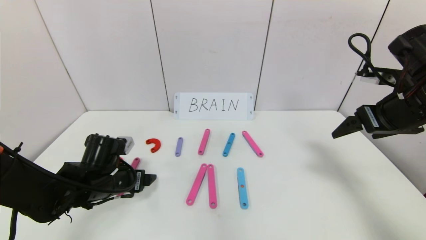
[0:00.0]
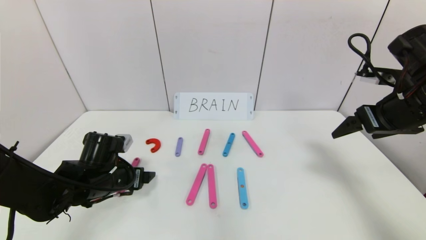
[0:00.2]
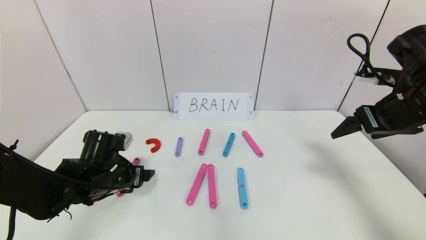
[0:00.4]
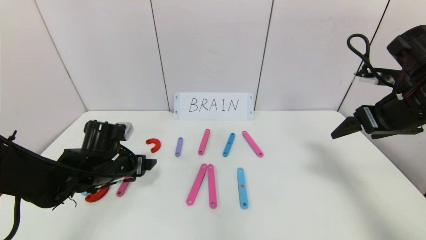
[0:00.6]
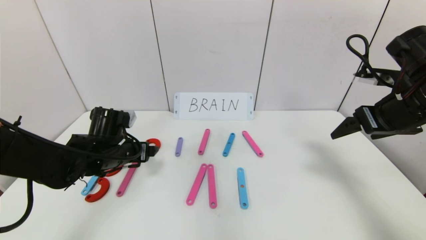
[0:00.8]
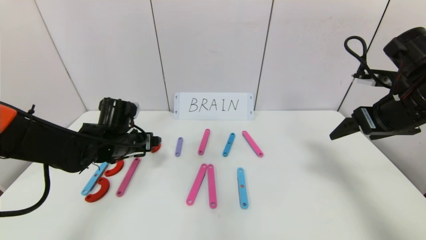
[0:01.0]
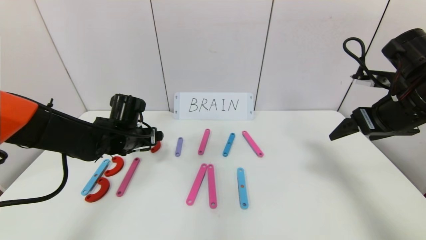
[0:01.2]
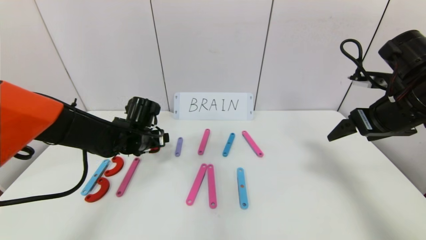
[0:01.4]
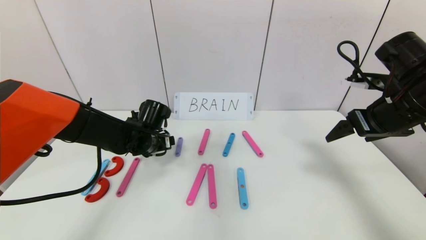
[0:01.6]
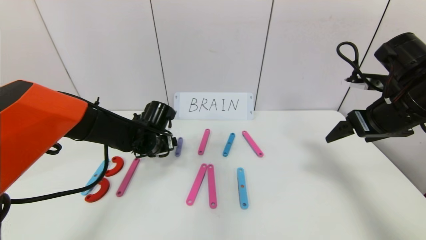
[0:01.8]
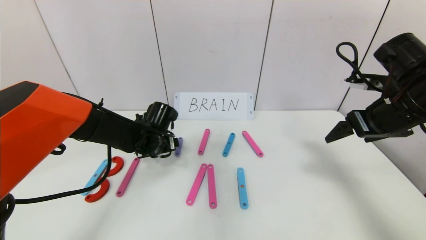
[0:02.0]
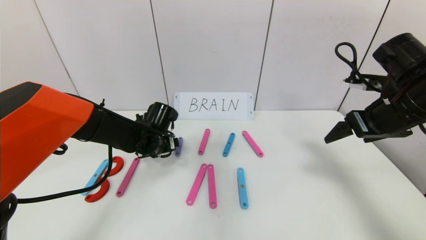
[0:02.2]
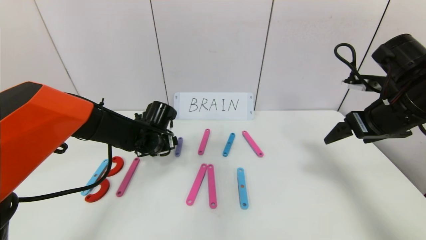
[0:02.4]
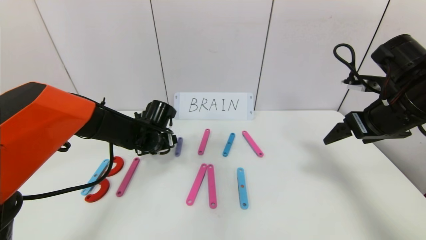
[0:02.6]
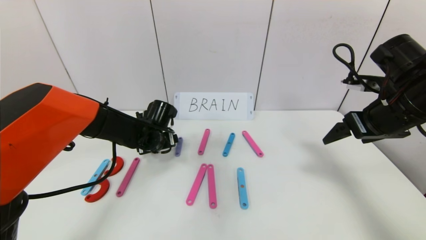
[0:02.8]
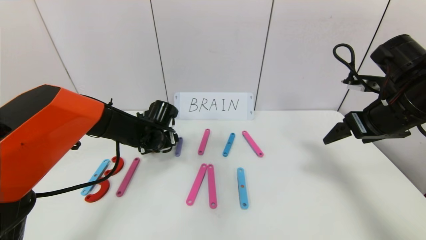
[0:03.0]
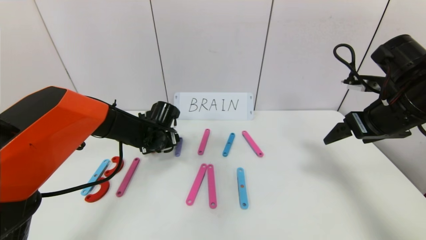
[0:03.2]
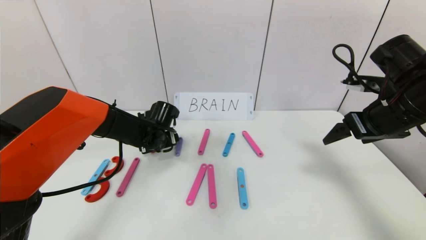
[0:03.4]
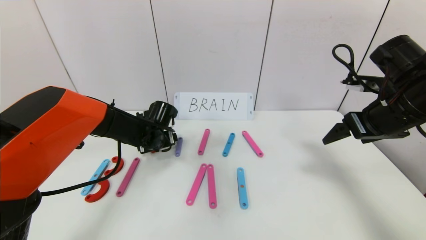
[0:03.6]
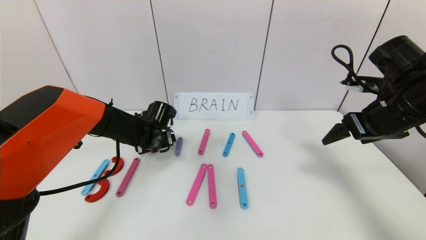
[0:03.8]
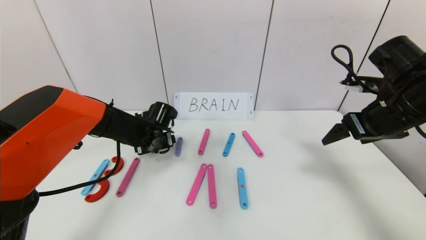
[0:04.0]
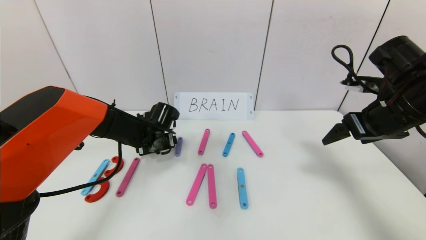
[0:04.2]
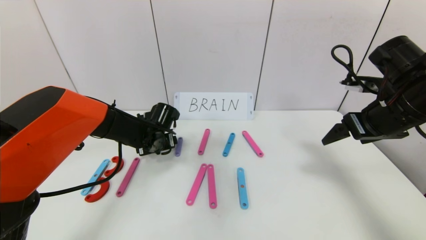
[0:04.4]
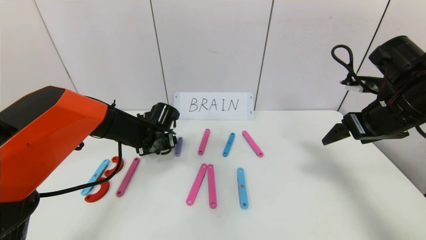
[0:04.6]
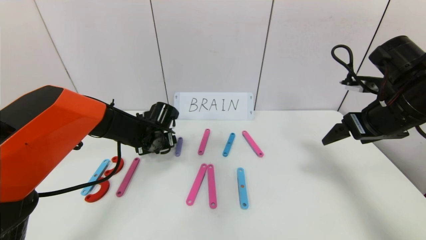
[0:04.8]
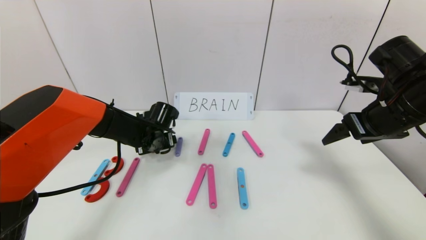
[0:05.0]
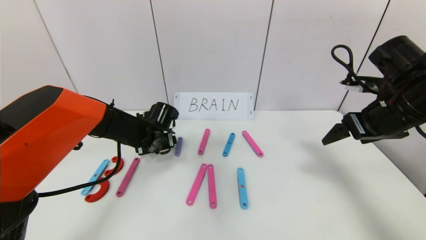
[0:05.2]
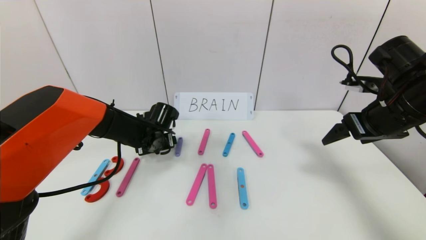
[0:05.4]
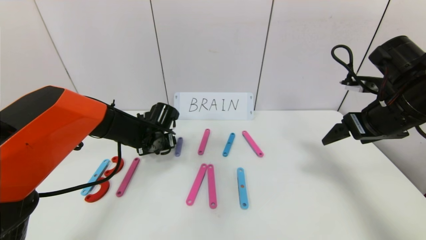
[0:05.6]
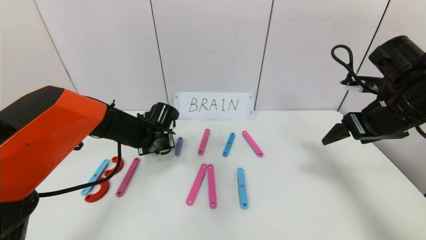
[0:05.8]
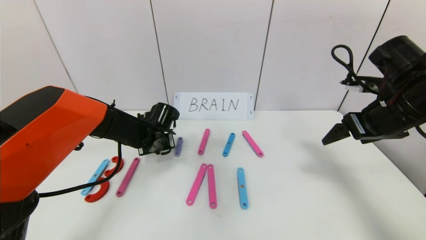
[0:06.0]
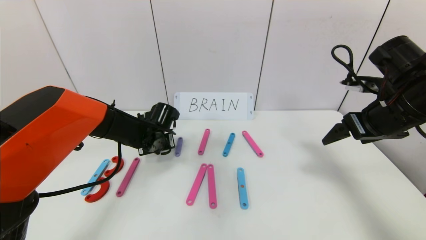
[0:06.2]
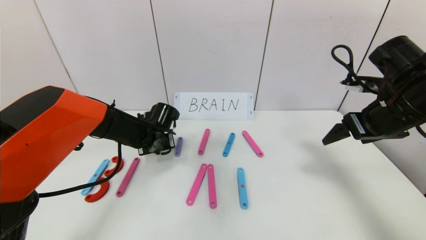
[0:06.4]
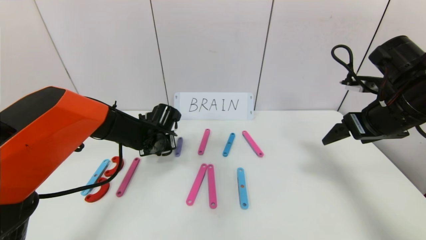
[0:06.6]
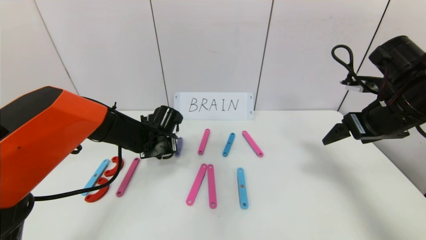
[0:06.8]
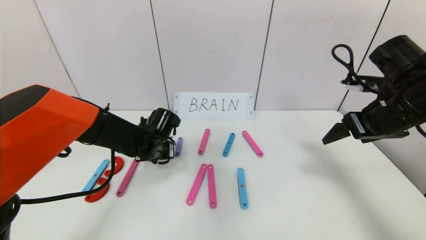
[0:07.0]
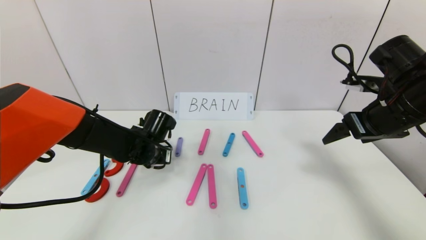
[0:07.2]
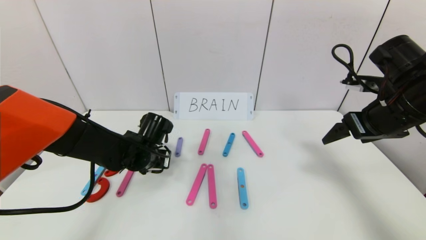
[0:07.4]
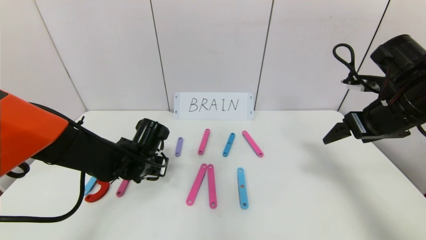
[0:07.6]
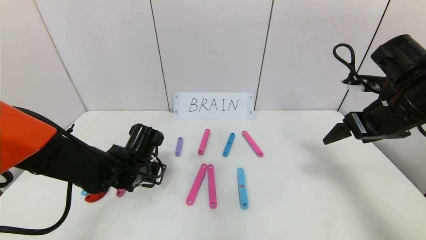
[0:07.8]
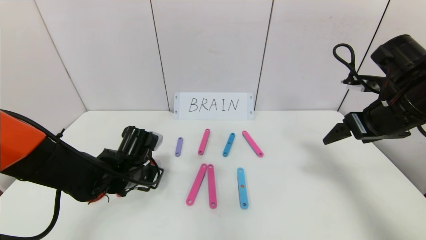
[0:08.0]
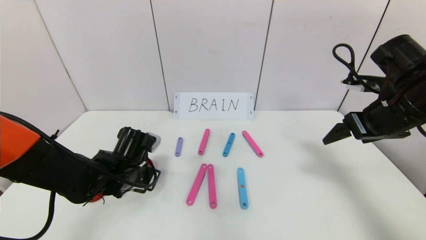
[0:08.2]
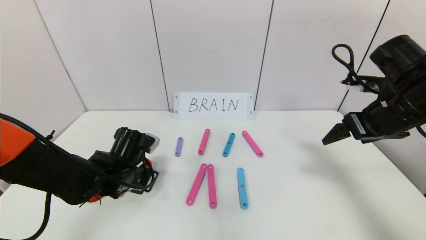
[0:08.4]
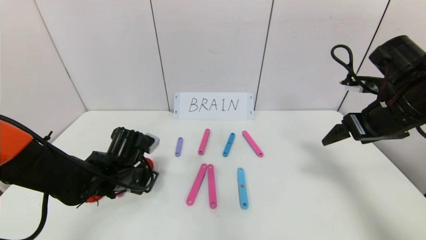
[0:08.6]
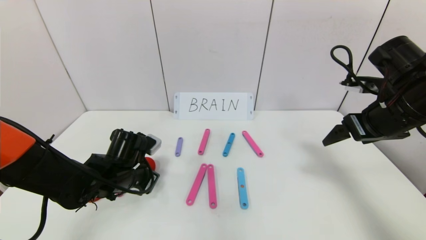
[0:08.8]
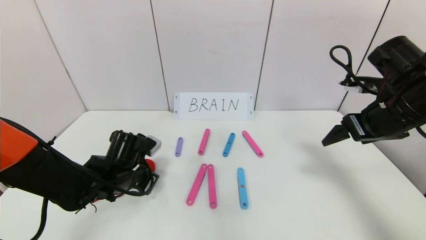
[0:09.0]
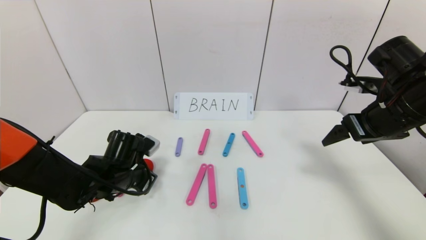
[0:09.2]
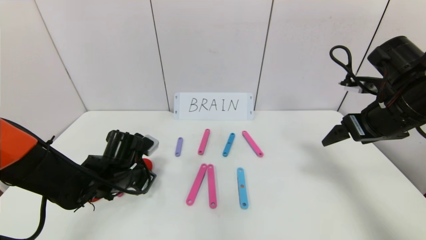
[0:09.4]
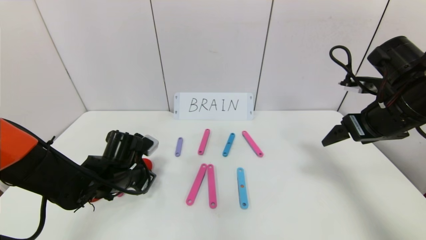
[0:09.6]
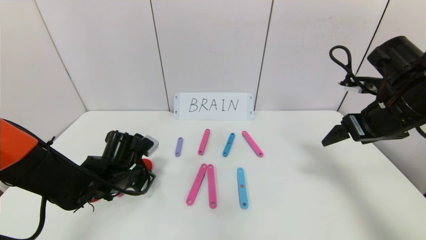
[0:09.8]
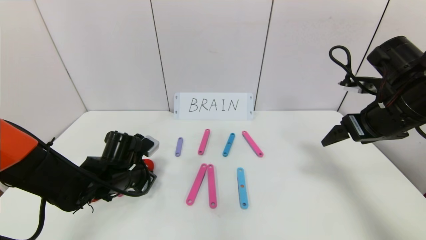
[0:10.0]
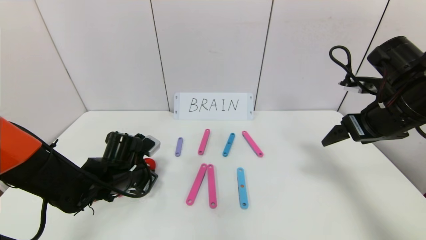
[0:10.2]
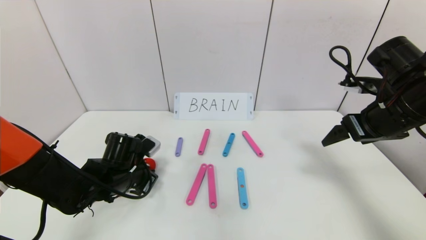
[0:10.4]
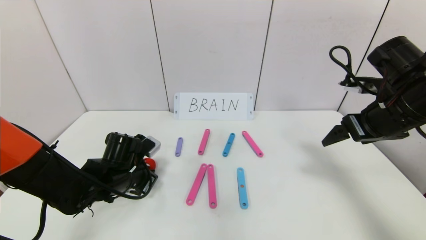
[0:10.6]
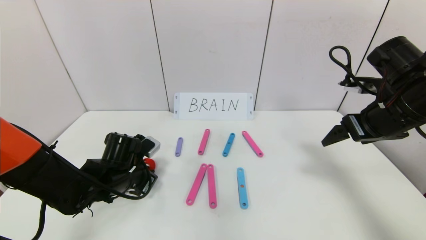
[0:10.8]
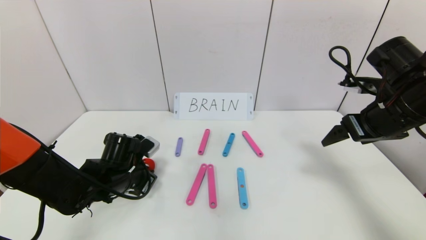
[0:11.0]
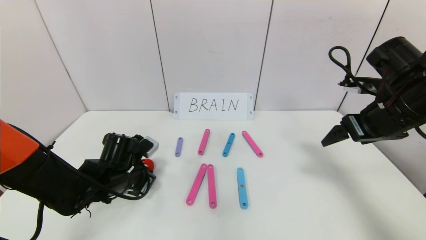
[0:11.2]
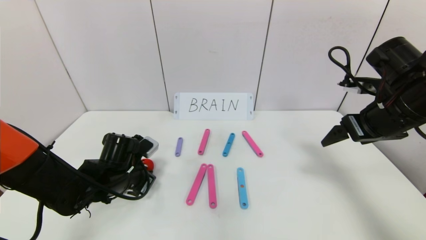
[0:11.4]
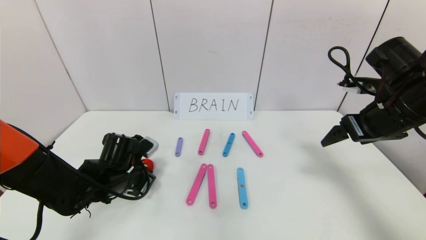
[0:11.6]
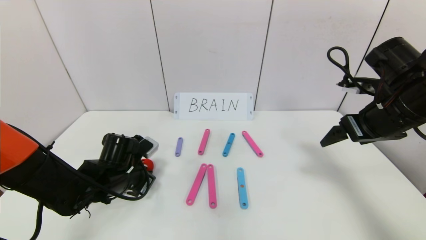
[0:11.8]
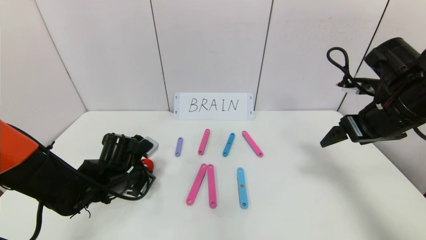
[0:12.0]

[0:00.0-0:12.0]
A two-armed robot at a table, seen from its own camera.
Task of the whole recording: rearrange the word baai as brain.
0:00.0 to 0:01.6: The left gripper goes approximately 10 cm forward and to the right.
0:01.6 to 0:03.0: The grippers make only small movements.
0:03.0 to 0:04.4: Both grippers stay put.
0:06.0 to 0:07.6: The left gripper travels backward by about 10 cm.
0:09.0 to 0:10.4: The two grippers keep their place.
0:10.4 to 0:12.0: Neither gripper changes place.

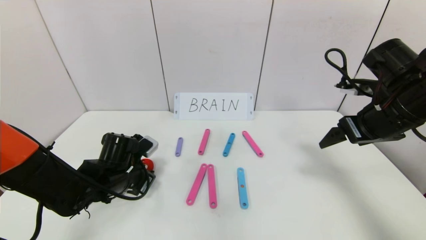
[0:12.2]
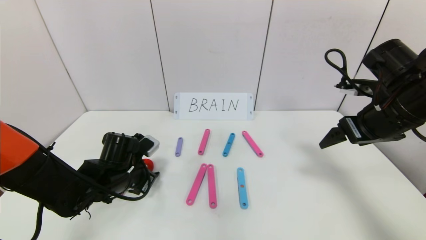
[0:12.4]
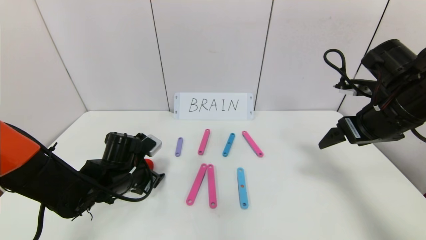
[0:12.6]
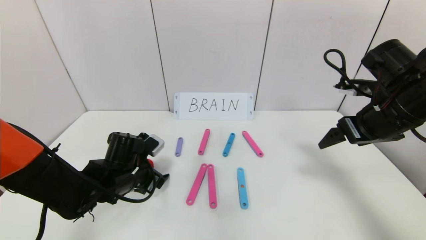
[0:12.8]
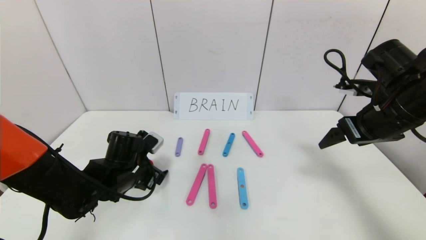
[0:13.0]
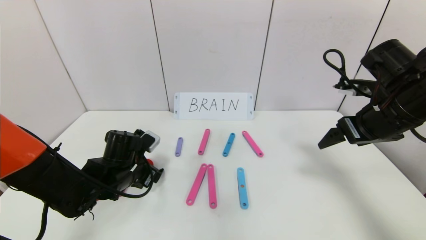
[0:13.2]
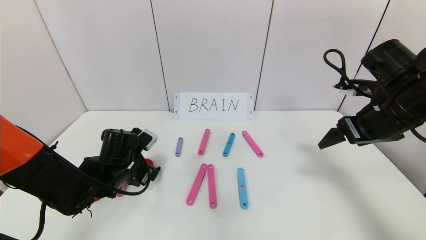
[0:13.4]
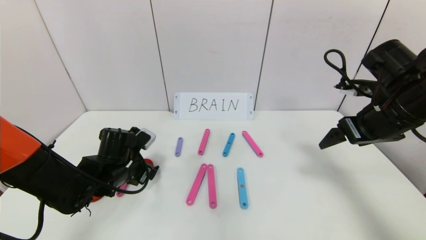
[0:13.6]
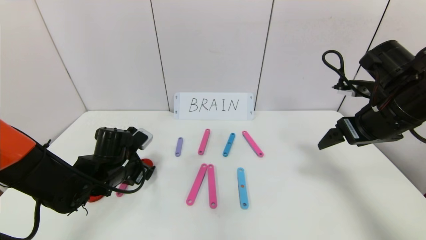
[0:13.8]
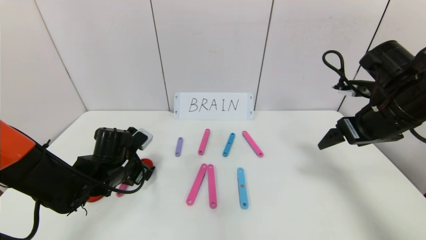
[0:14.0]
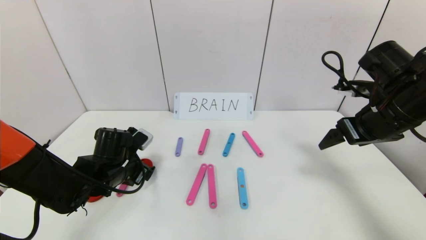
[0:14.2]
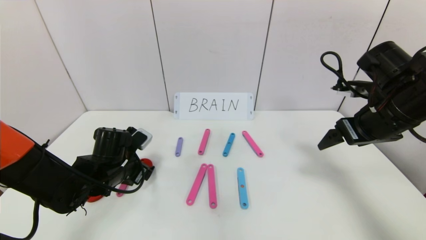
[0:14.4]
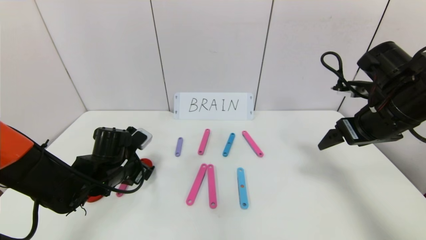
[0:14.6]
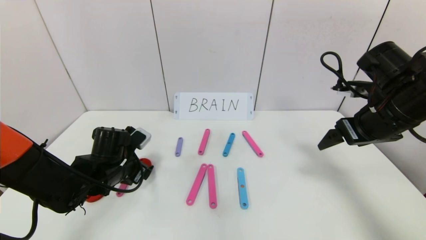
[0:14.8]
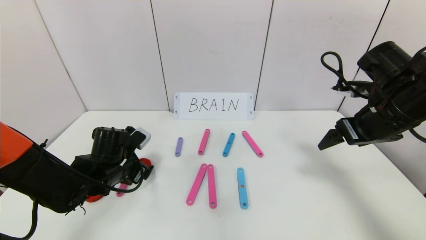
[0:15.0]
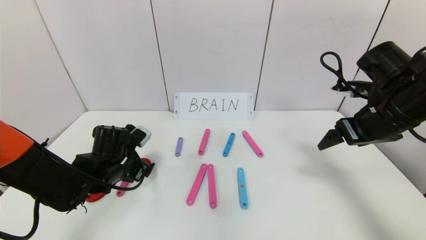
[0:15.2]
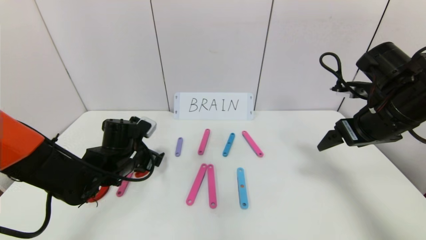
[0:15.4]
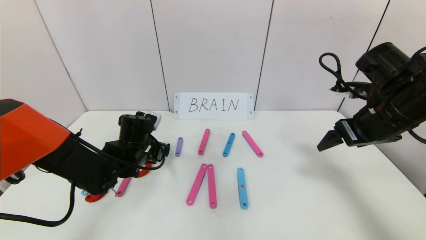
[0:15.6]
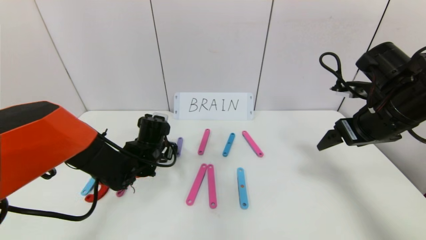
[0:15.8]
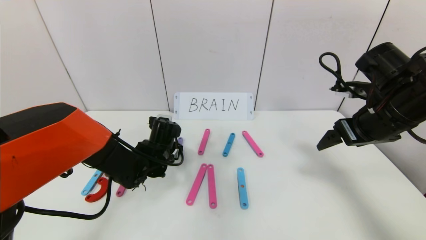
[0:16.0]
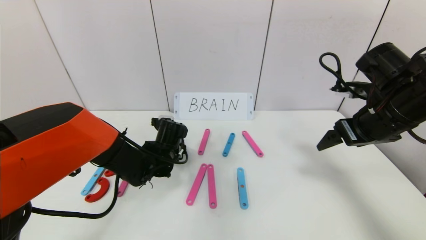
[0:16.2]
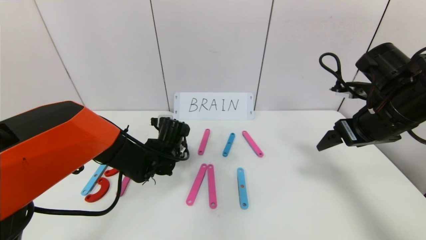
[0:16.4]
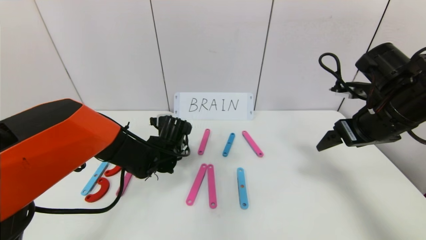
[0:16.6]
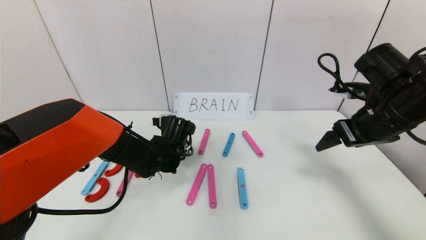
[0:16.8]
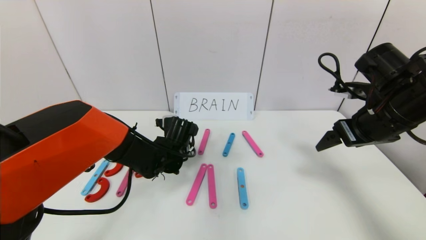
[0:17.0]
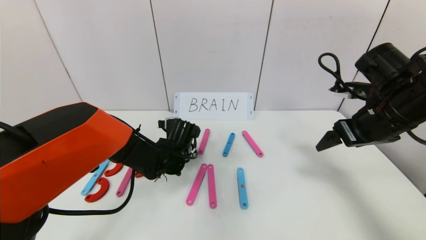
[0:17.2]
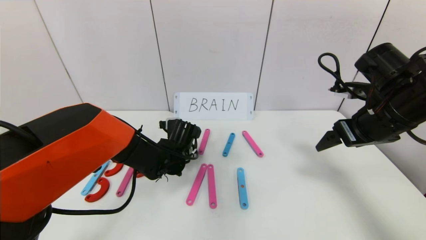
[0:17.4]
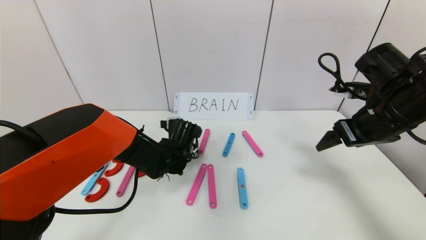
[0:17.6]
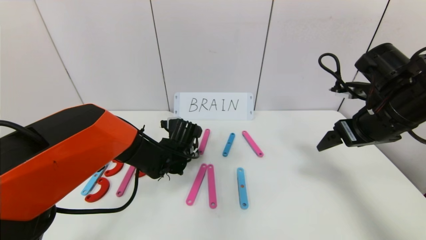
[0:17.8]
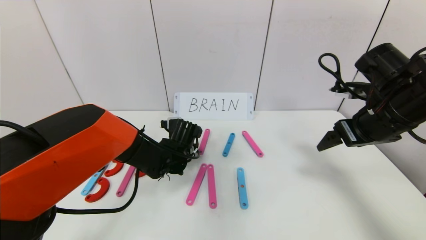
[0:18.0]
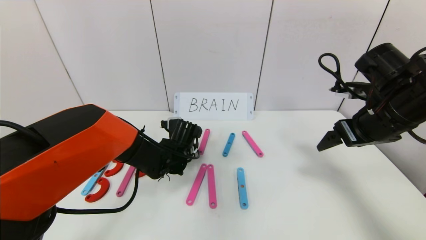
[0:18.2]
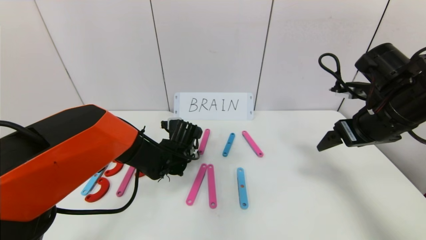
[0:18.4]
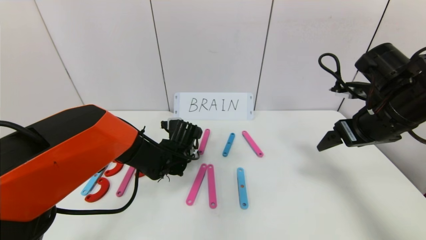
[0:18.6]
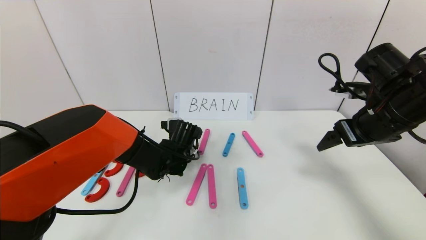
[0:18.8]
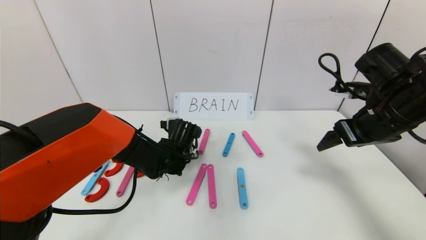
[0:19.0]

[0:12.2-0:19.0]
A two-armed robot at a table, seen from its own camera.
Task of the whole recording: rearrange the word baai as brain.
0:12.2 to 0:13.6: The left gripper opens up.
0:13.6 to 0:15.0: Neither gripper changes place.
0:15.0 to 0:16.2: The left gripper shifts roughly 10 cm to the right and forward.
0:16.2 to 0:17.6: There are only small adjustments of the grippers.
0:17.6 to 0:19.0: The left gripper closes up.
